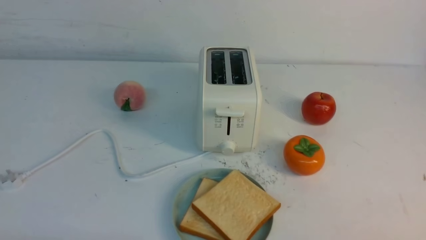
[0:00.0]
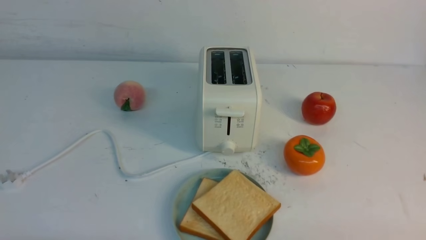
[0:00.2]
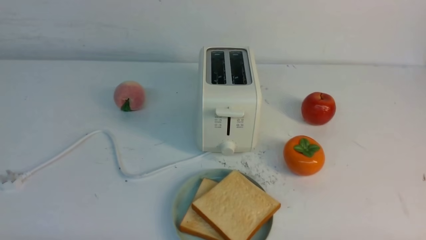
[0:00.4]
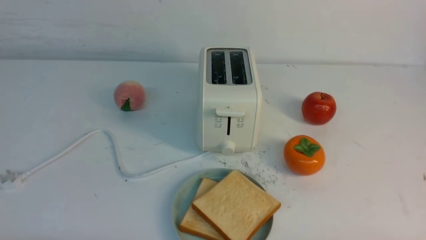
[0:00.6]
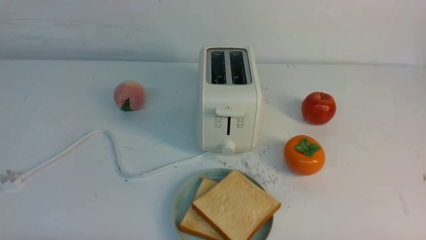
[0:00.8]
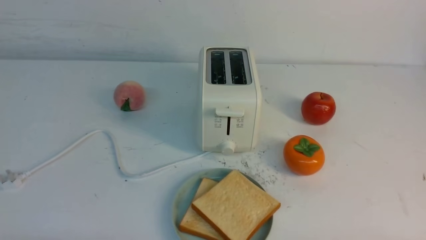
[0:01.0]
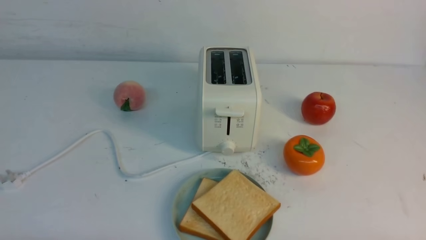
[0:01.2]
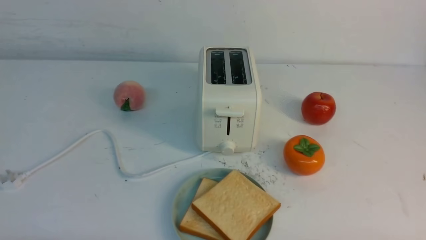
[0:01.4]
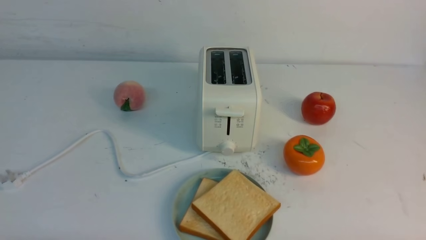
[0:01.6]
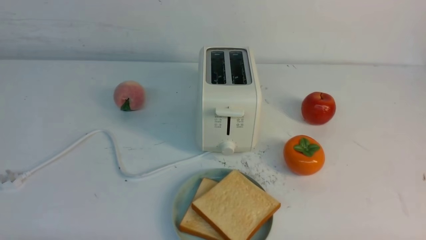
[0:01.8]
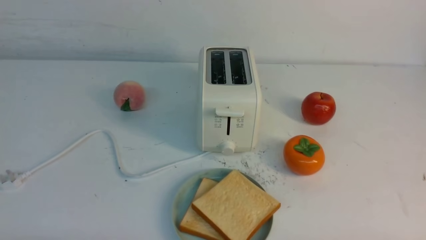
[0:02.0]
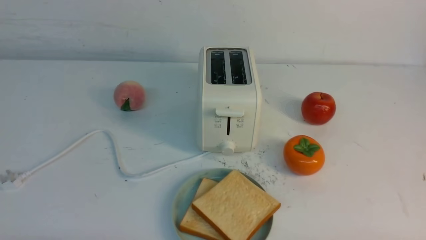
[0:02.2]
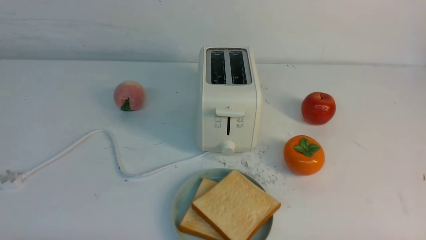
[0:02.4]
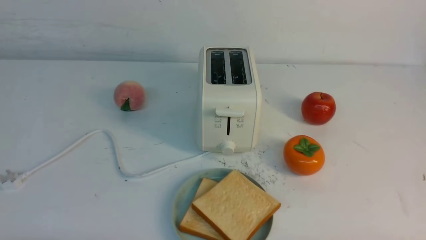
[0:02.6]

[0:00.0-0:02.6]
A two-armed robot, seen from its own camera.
Task of the whole recording: take toasted bread from bread machine on white table place on plate.
0:01.2 to 0:02.6: Both grippers stay about where they are.
